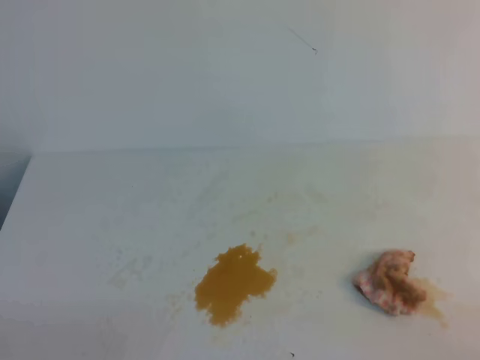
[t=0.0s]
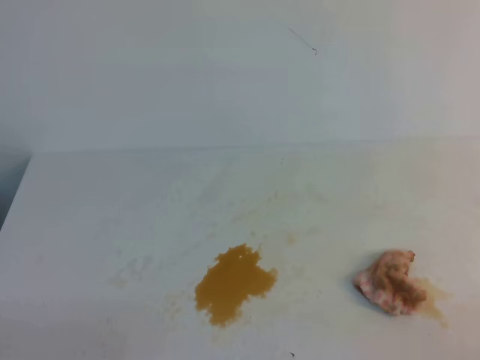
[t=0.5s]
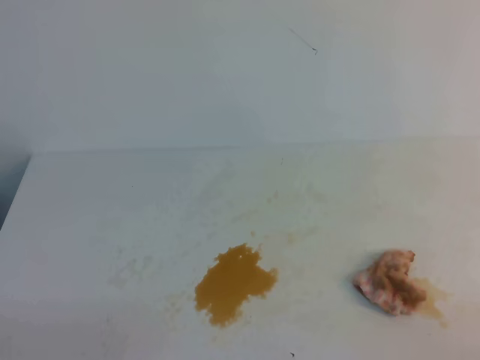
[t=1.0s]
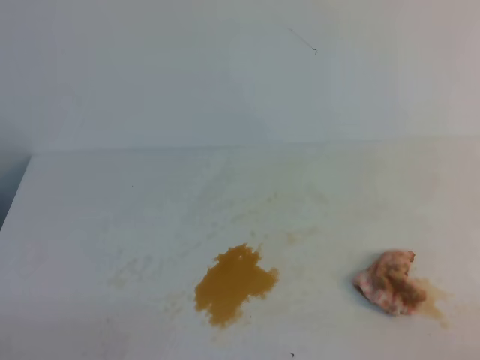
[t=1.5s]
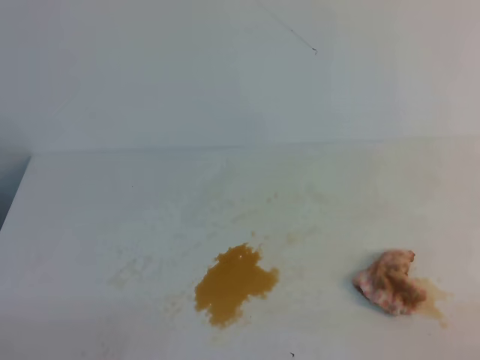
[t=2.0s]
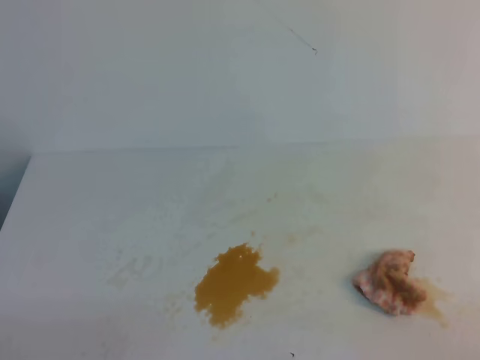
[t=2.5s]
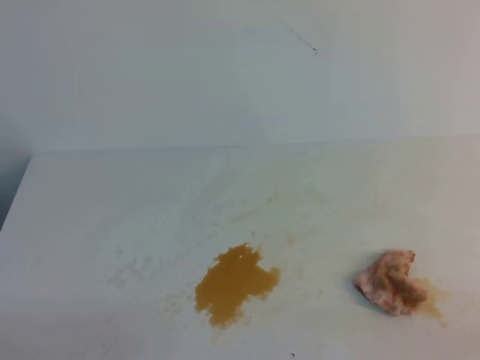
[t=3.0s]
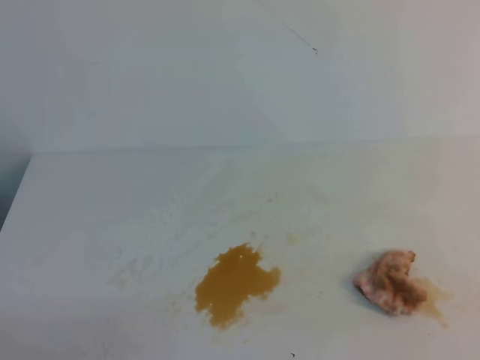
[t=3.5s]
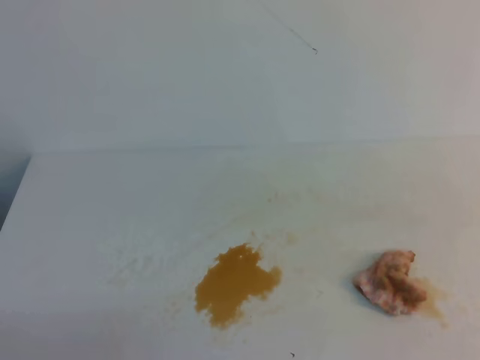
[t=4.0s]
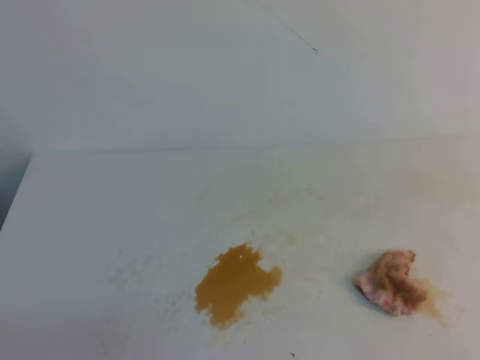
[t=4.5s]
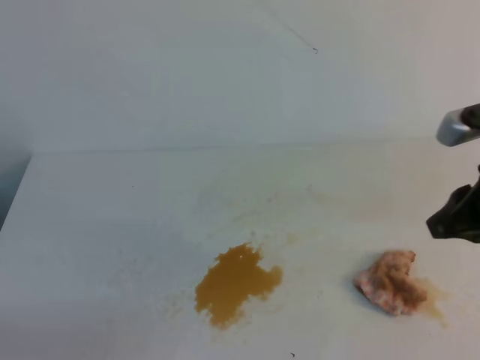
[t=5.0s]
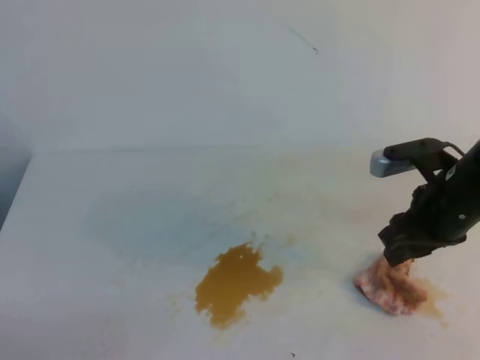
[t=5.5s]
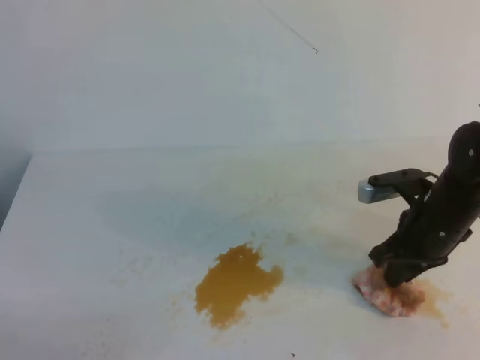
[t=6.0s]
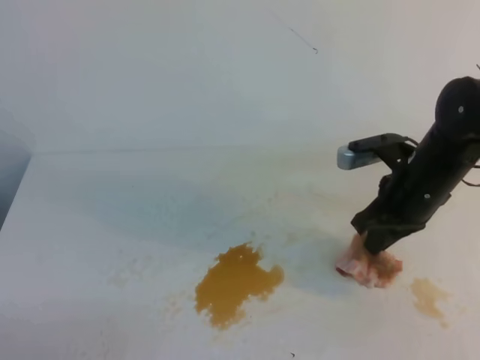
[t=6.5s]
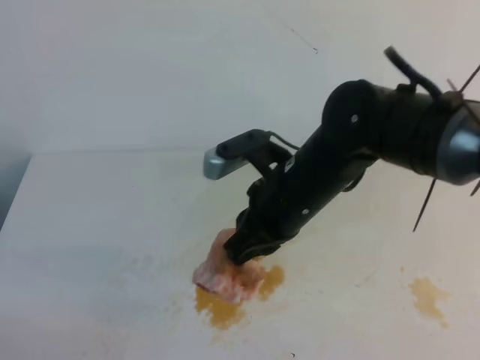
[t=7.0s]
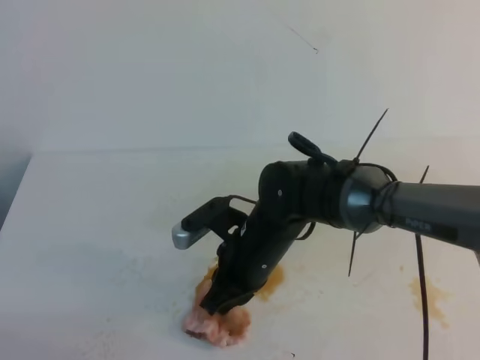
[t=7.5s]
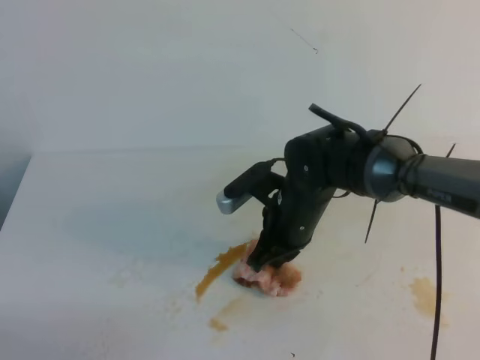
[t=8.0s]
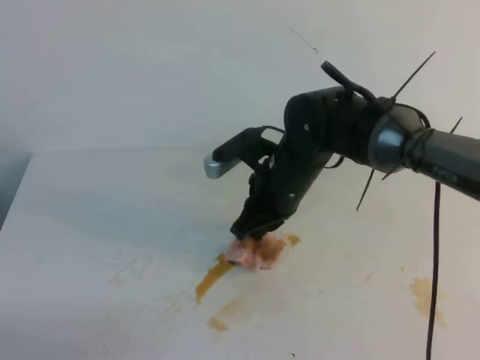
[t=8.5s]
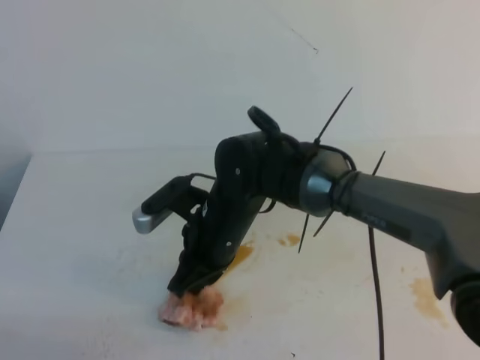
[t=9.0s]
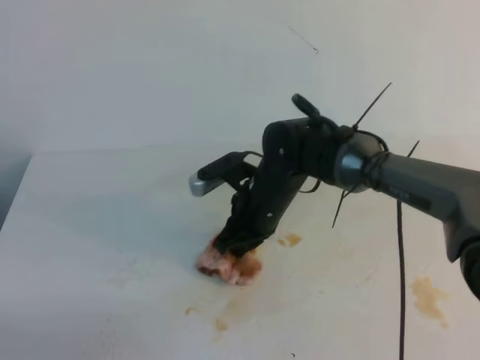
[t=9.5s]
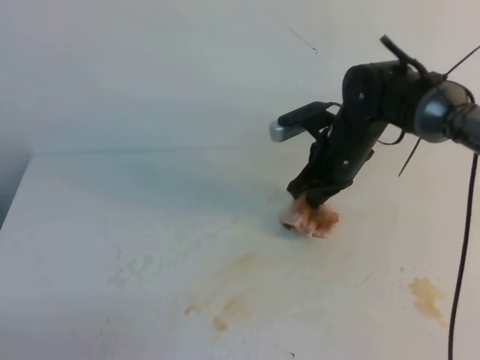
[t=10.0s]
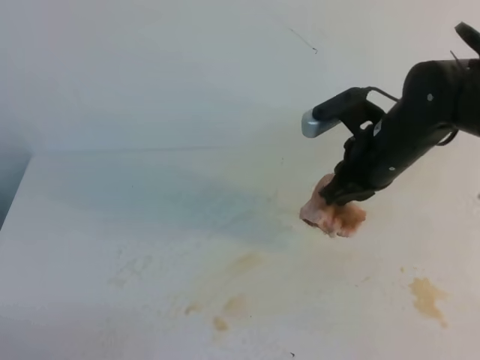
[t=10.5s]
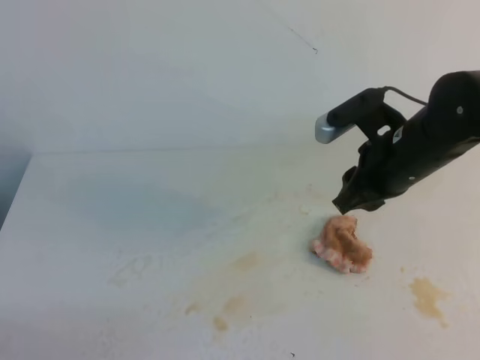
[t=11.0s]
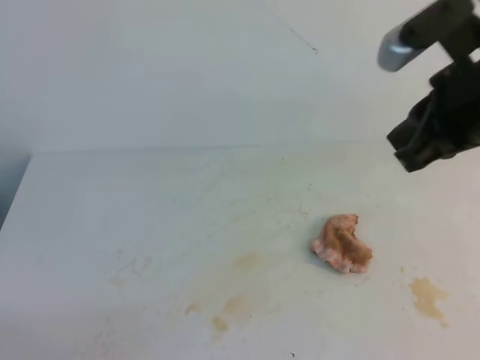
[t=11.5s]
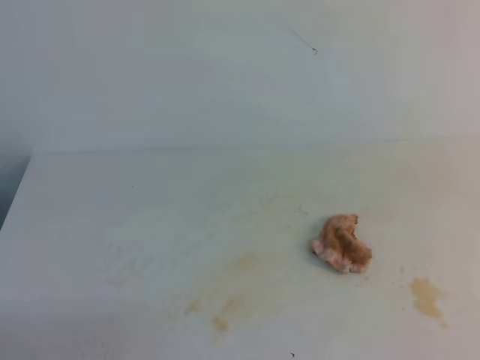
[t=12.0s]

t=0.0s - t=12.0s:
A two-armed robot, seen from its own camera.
t=0.0s - t=2.0s: The two grippers keep their place.
t=4.0s - t=6.0s: The right gripper shifts about 35 cm forward, downward and to the left, and opens up.
t=6.0s - t=8.0s: The right gripper travels to the left by about 15 cm, and closes its fingers.
t=8.0s - t=10.0s: The right gripper shifts about 10 cm forward and to the right.
t=10.0s - t=12.0s: The right gripper moves backward, upward and to the right, approximately 40 cm, and opens, then closes again.

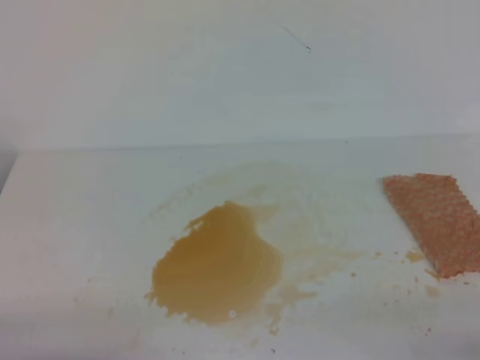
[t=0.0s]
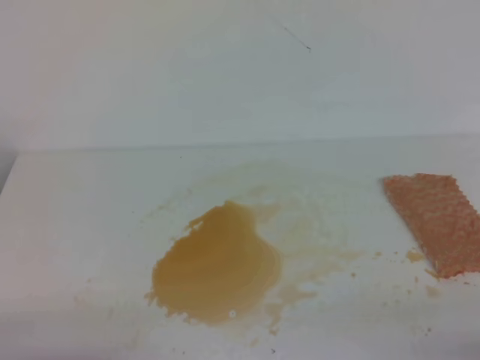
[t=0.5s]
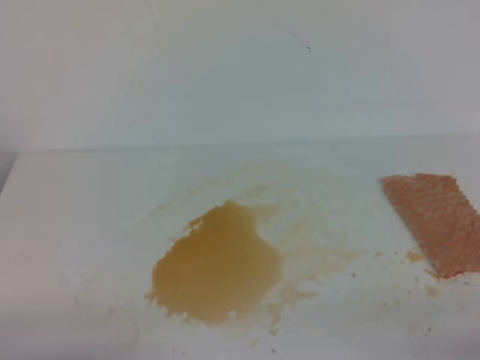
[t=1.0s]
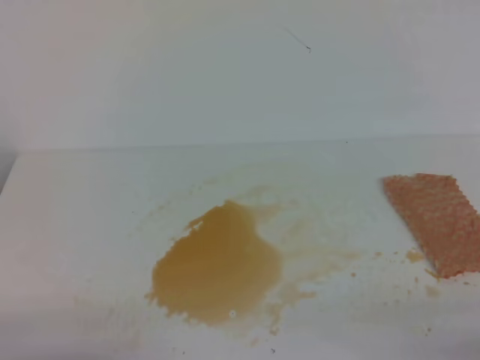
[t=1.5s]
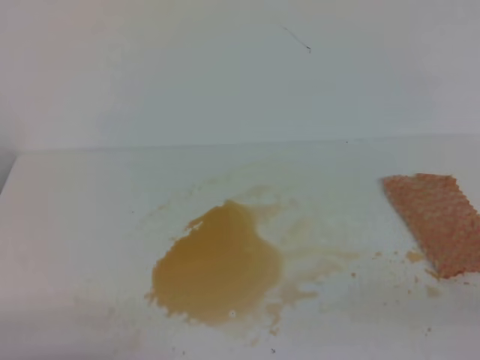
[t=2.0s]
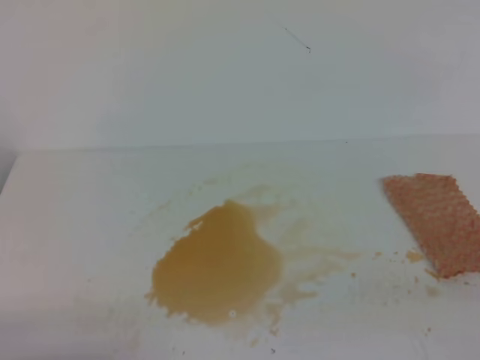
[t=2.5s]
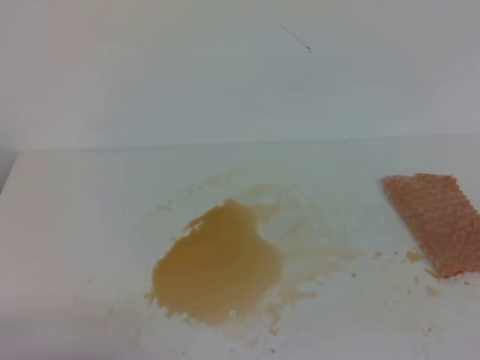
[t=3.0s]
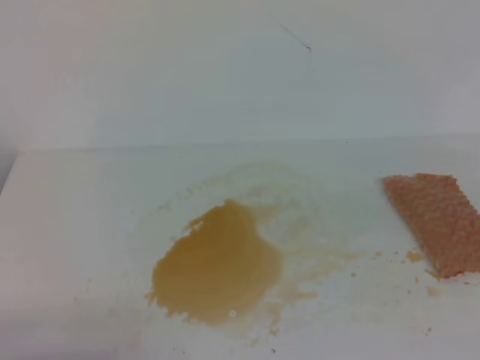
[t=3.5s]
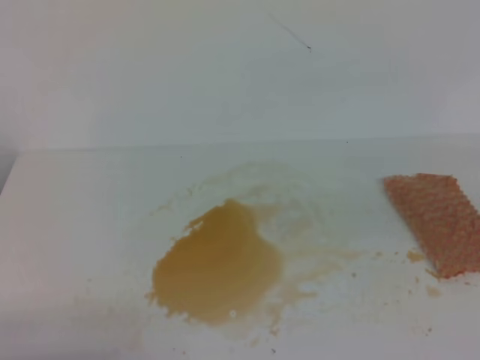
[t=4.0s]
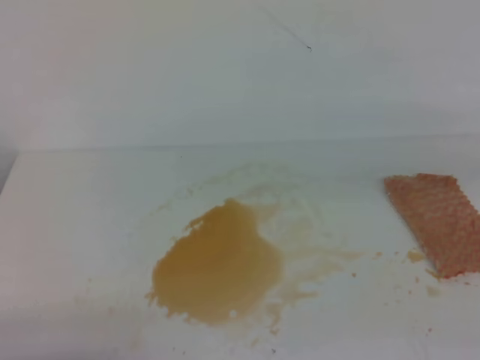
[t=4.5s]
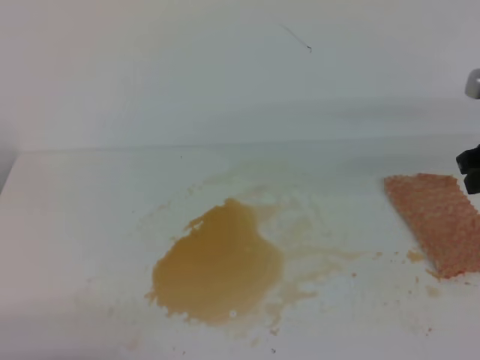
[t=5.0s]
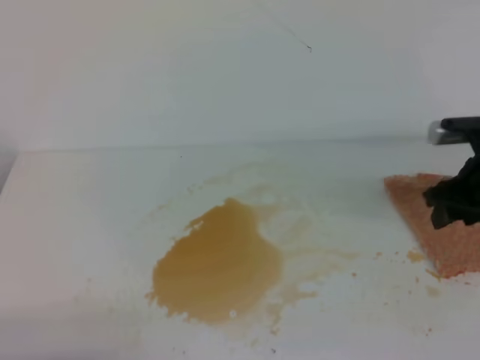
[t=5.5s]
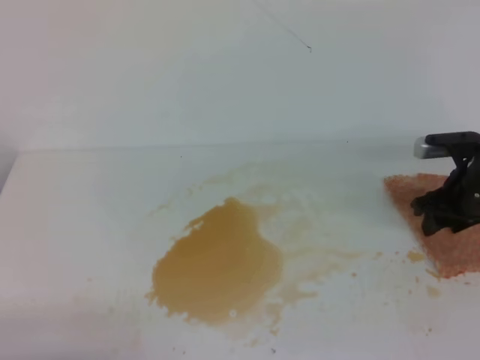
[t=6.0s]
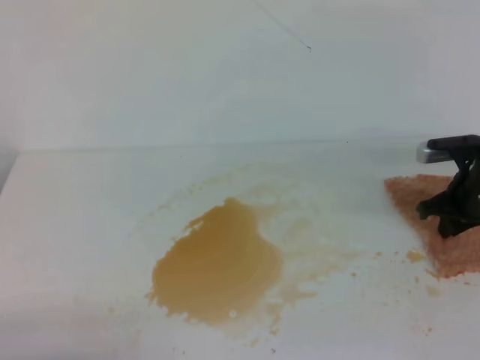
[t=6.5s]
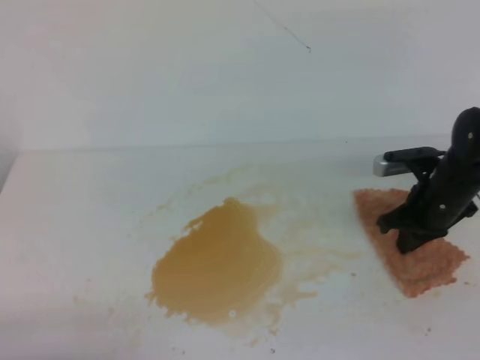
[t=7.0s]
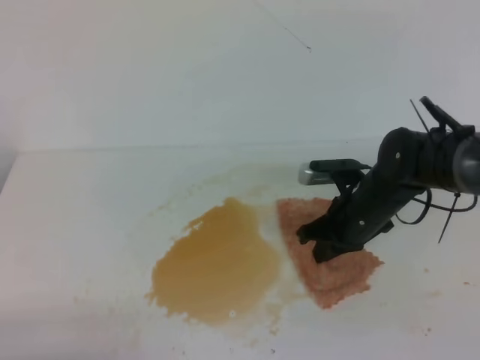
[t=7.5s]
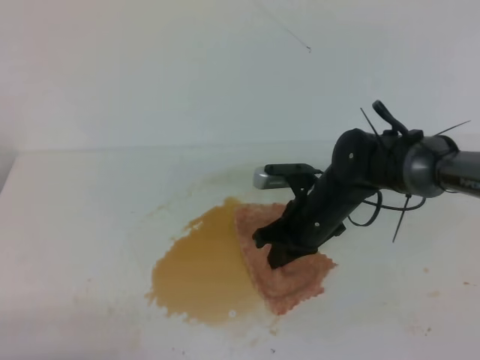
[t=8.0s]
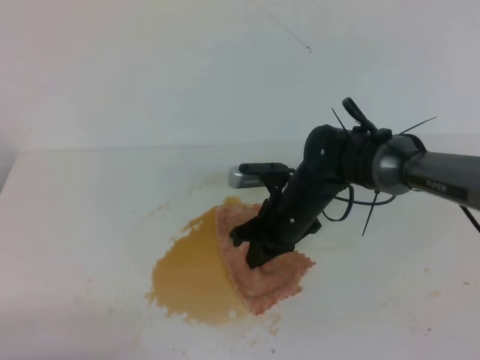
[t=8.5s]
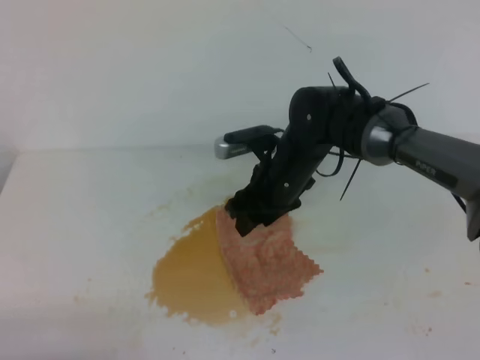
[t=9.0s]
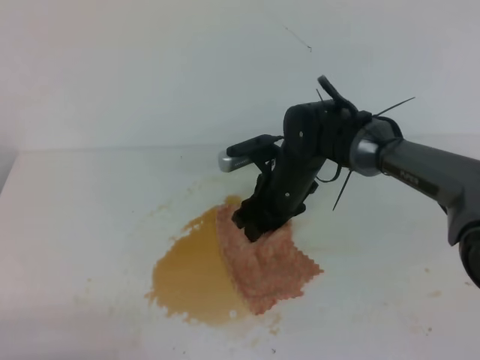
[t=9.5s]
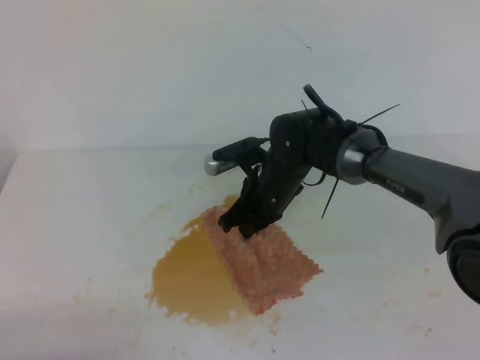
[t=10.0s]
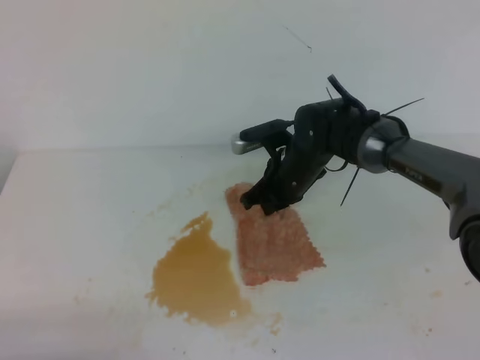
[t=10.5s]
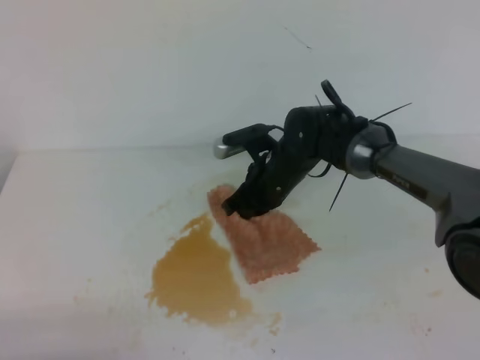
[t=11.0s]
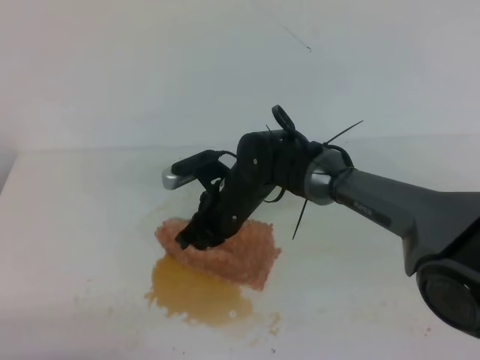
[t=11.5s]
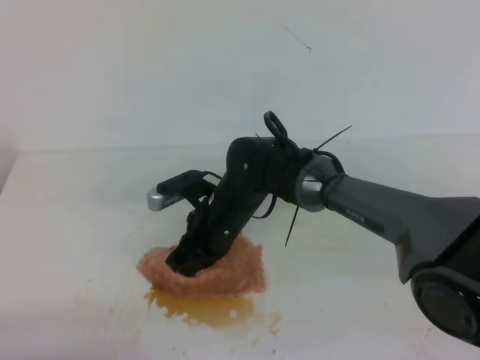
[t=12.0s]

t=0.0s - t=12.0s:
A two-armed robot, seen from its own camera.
t=4.0s - t=6.0s: The right gripper is displaced forward and downward by about 30 cm, and opens.
t=6.0s - t=8.0s: The right gripper shifts some 20 cm to the left, and closes up.
t=8.0s - t=10.0s: The right gripper shifts some 5 cm to the left, and opens, then closes once more.
t=10.0s - t=12.0s: The right gripper shifts some 5 cm to the left.

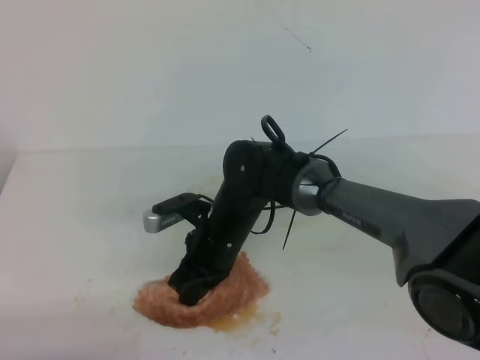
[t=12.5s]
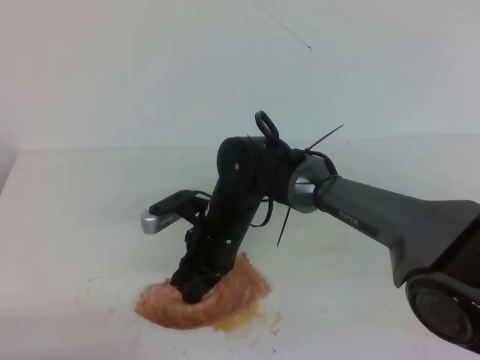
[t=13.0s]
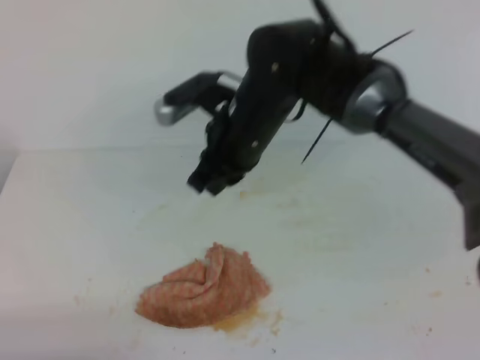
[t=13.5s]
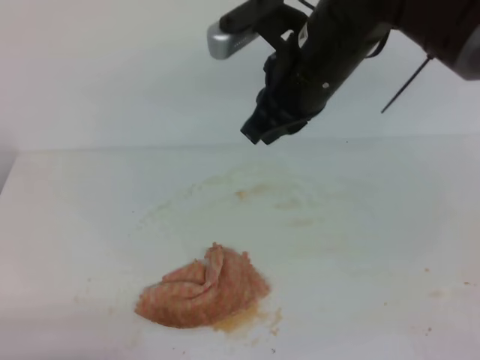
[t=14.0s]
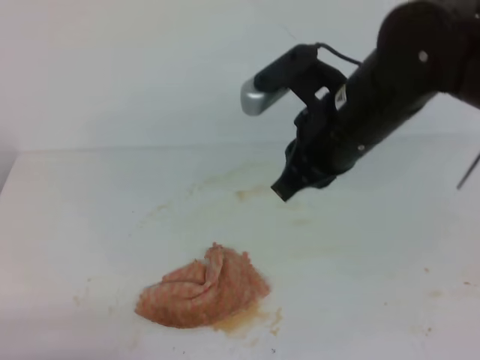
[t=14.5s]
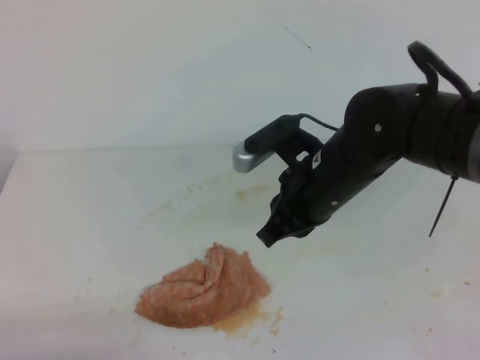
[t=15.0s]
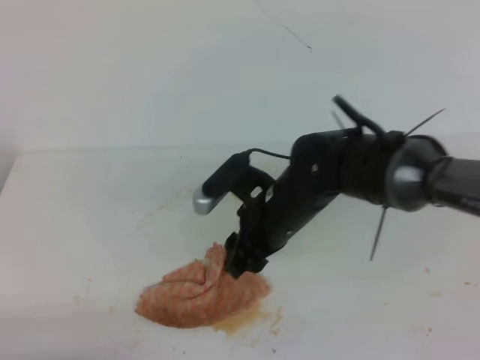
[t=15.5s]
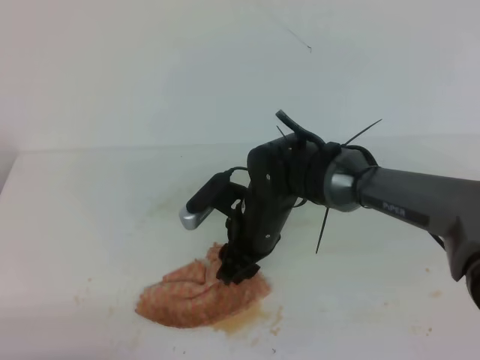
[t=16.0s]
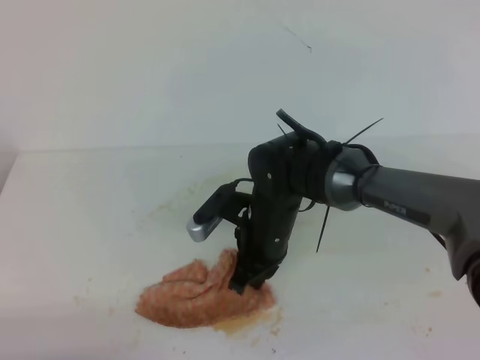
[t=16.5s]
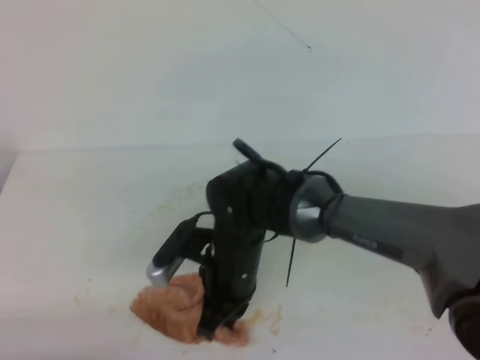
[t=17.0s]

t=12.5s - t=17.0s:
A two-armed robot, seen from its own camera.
t=12.5s - t=14.5s: The right gripper travels upward and to the right by about 25 cm.
t=14.5s - t=17.0s: The right gripper travels downward and to the left by approximately 20 cm, and opens, then closes again.
